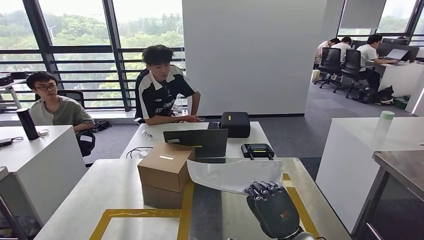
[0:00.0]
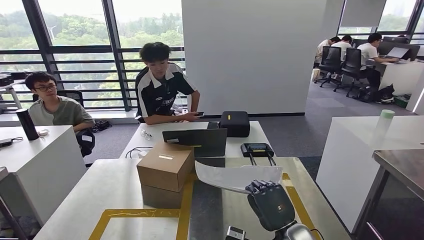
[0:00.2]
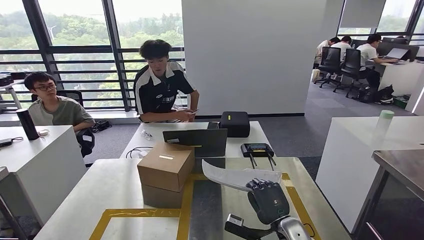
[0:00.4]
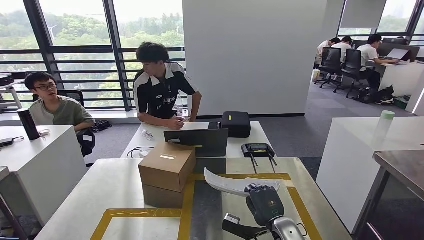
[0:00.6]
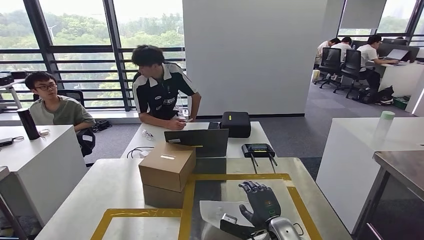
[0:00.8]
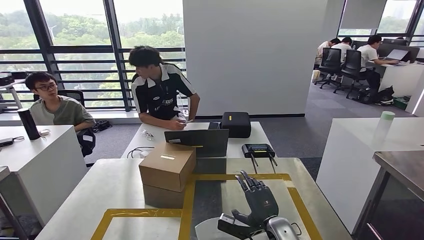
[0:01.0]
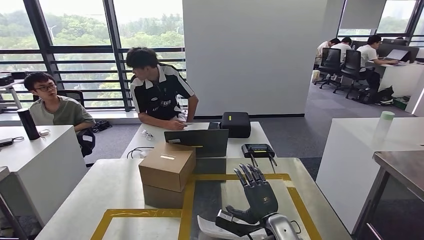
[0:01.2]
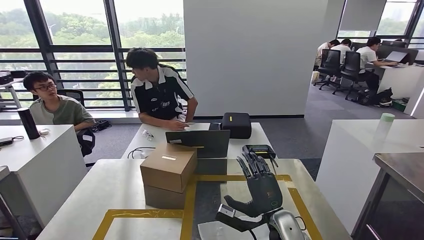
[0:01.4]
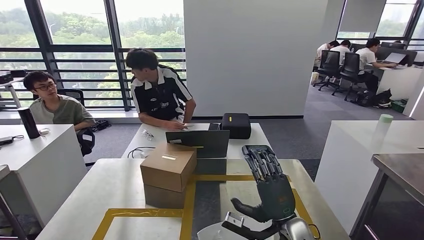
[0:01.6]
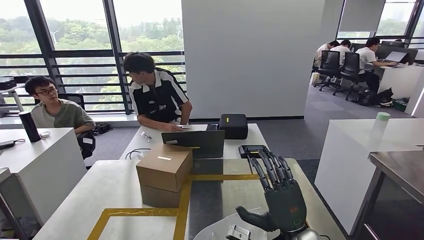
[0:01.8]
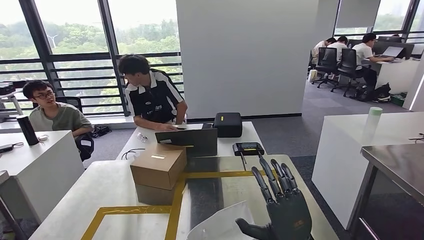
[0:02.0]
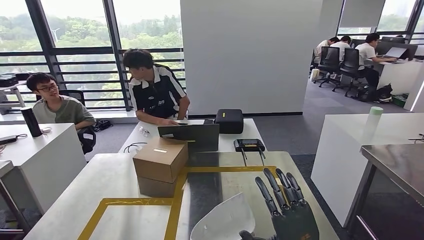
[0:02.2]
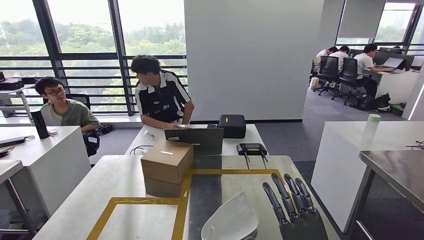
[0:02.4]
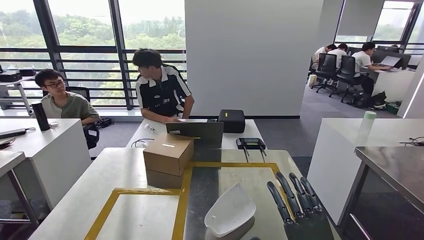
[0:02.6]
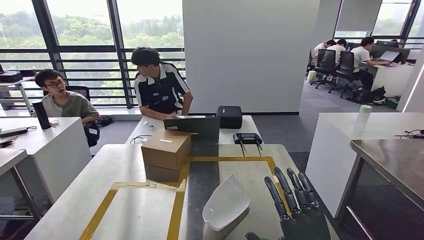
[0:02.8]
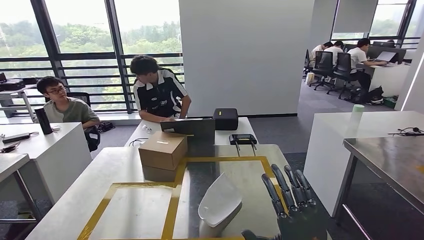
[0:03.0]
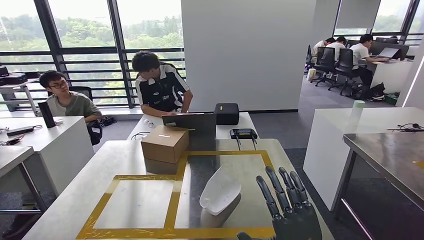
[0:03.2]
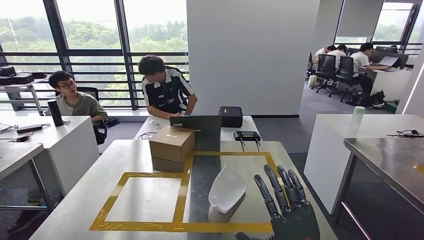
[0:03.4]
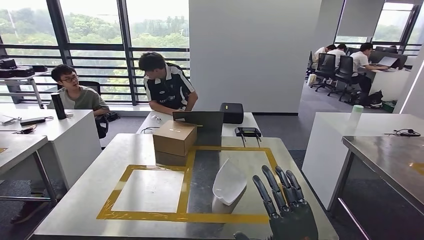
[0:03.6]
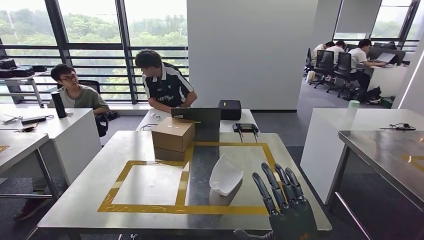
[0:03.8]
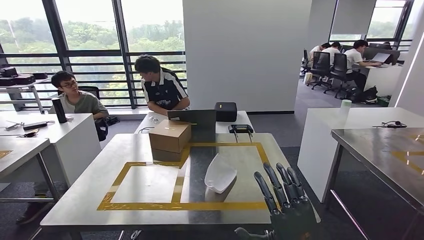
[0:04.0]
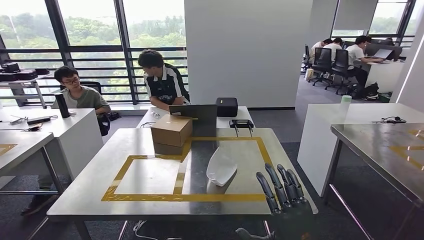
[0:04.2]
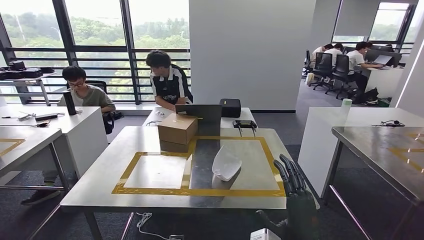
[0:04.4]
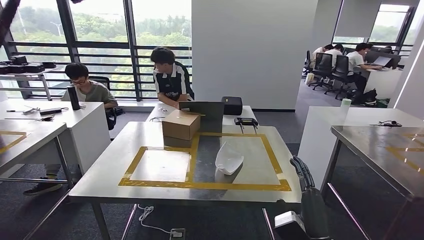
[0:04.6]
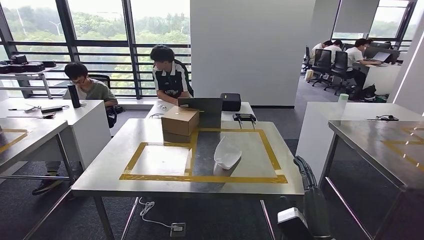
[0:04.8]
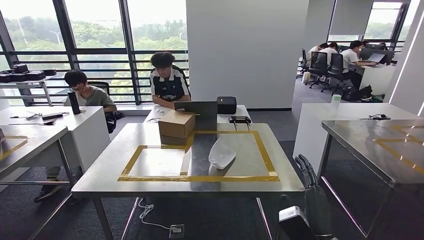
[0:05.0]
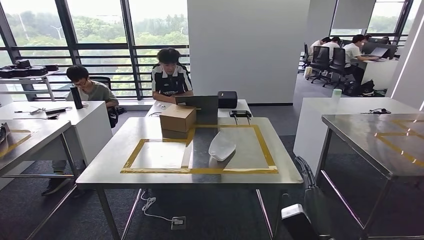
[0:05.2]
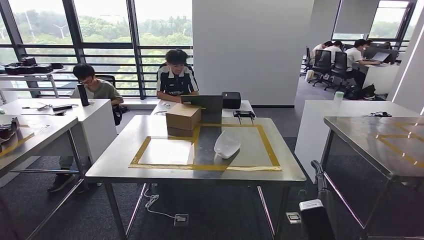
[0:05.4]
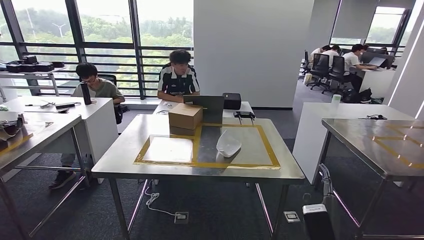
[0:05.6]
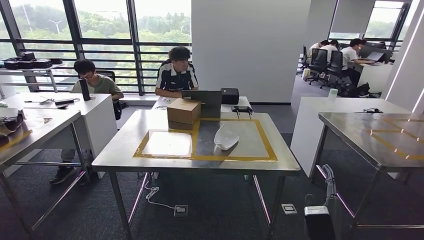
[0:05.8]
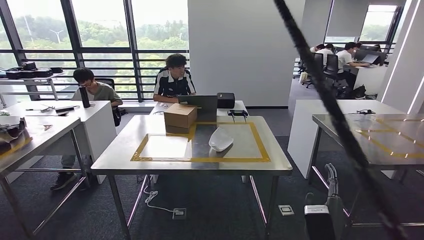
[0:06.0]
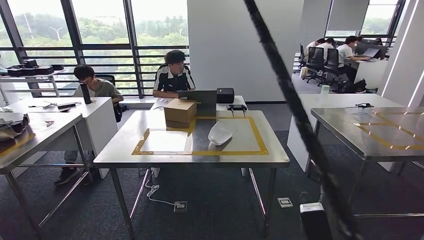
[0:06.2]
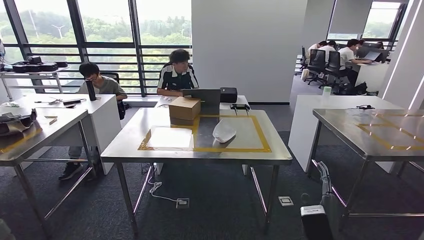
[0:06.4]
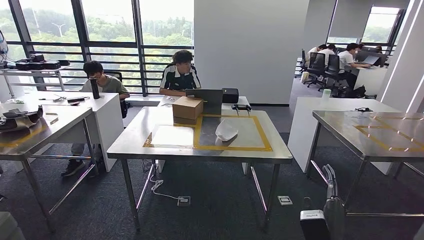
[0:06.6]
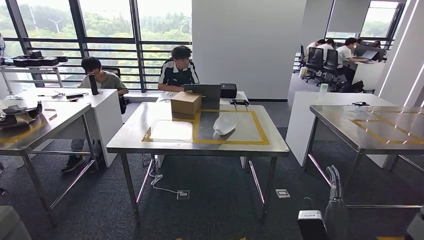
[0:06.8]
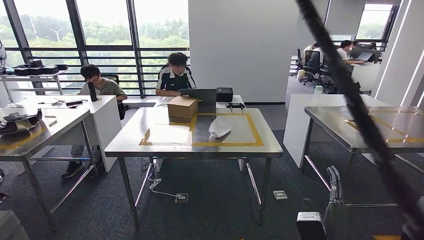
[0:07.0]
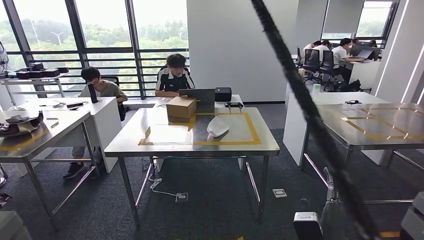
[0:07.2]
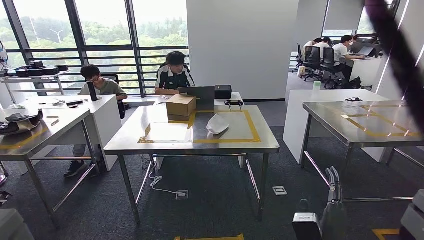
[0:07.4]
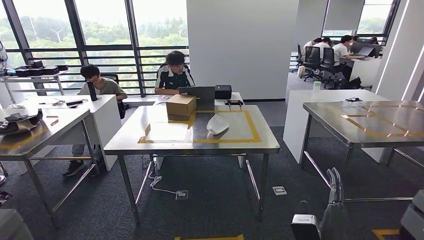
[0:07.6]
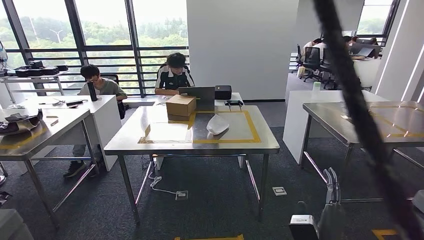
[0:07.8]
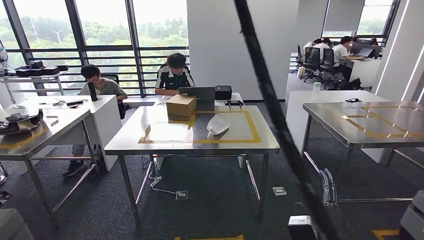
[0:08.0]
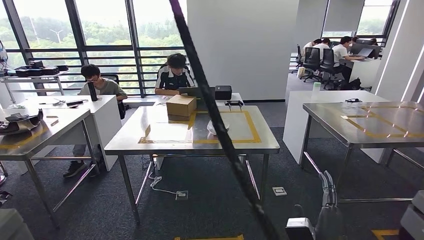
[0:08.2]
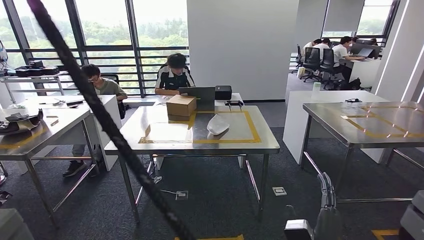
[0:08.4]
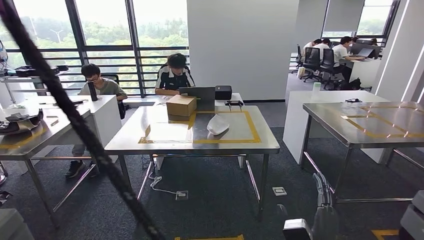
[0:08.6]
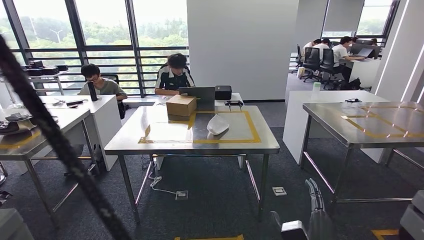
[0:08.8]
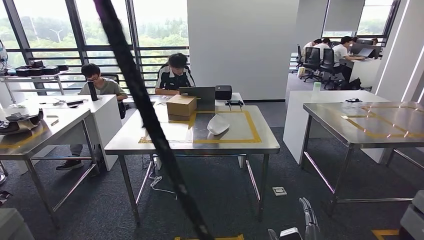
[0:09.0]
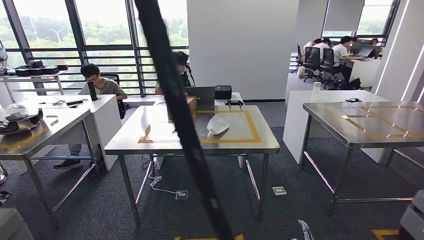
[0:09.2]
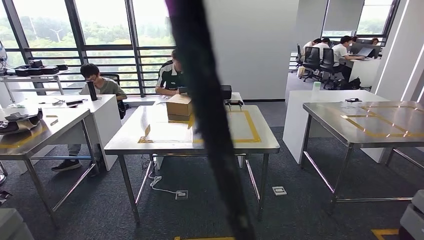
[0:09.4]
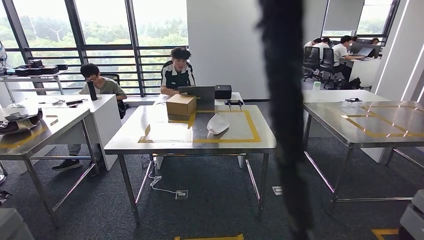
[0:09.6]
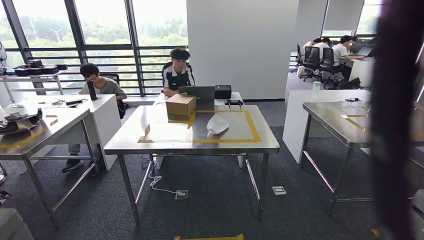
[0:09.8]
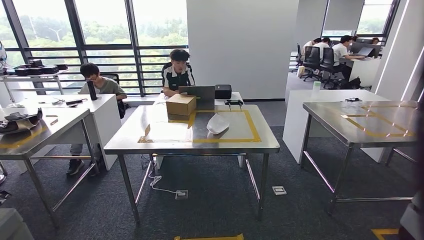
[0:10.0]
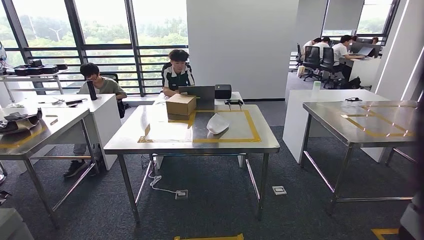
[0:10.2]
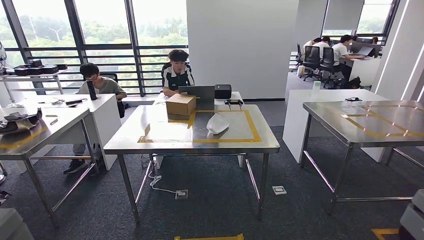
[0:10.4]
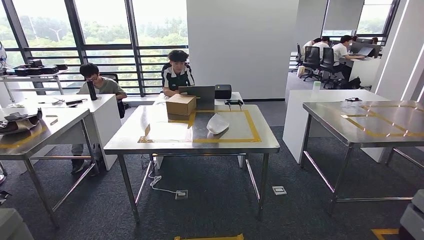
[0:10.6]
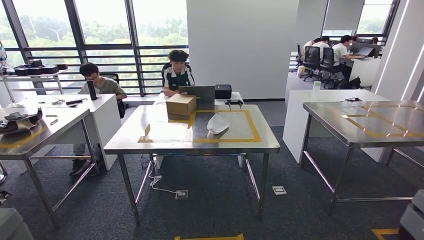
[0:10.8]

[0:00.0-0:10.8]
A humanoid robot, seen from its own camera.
Step, 0:00.0 to 0:03.8: Insert the small parts into the corresponding holes on the workbench.
Step, 0:04.0 to 0:10.8: Move to the initial position at the workbench.
0:07.8 to 0:09.2: The right hand moves downward, approximately 10 cm.
0:09.2 to 0:10.8: The right hand shifts approximately 30 cm backward and downward.
